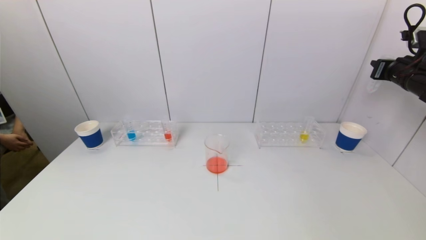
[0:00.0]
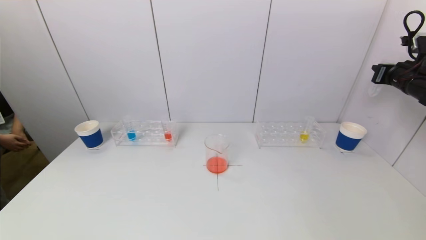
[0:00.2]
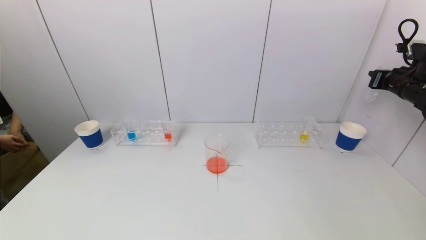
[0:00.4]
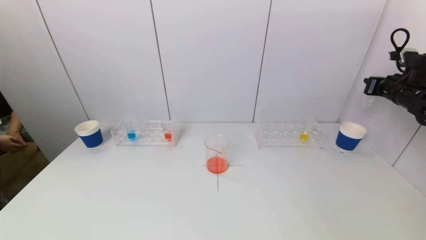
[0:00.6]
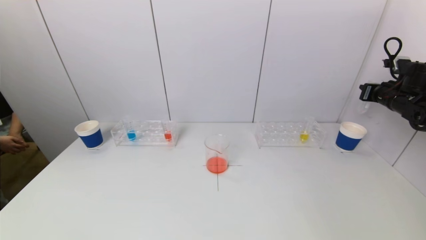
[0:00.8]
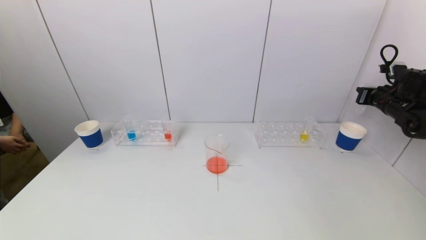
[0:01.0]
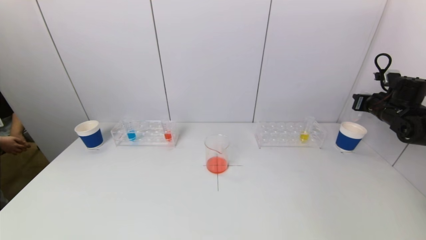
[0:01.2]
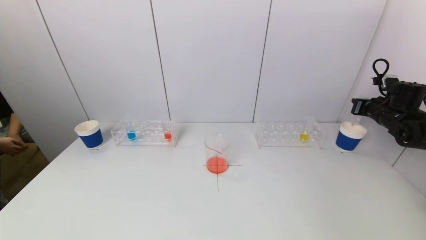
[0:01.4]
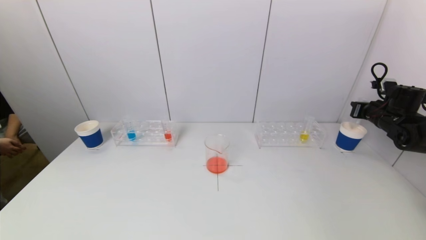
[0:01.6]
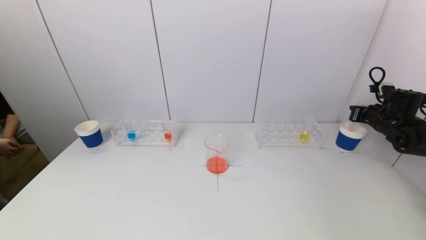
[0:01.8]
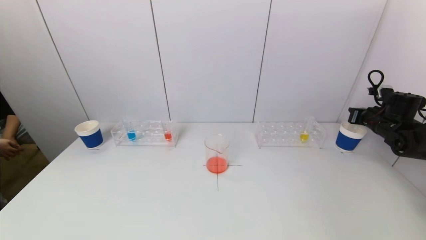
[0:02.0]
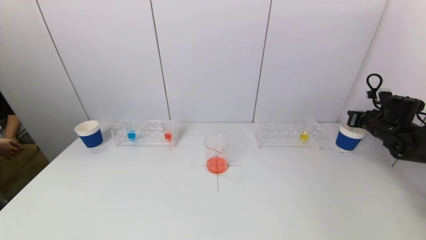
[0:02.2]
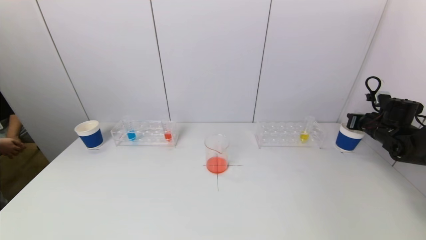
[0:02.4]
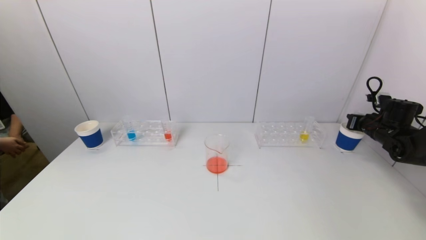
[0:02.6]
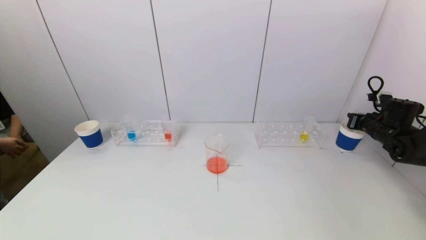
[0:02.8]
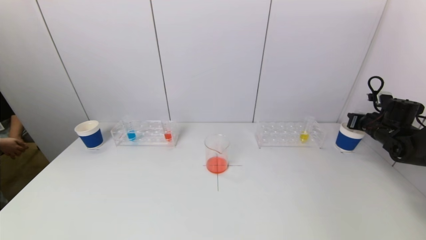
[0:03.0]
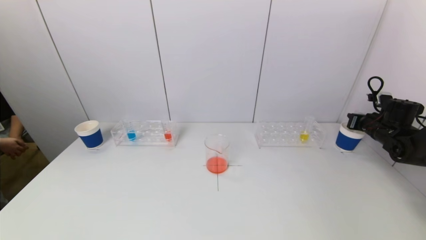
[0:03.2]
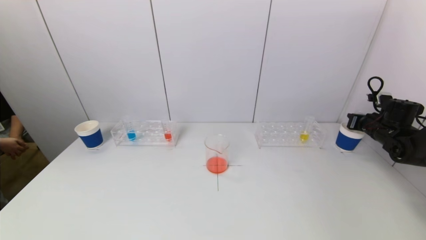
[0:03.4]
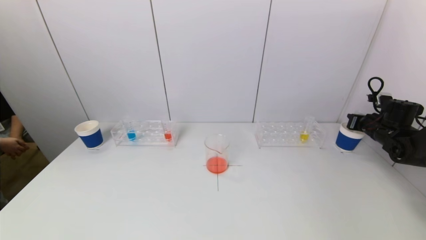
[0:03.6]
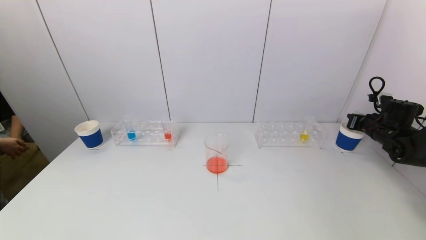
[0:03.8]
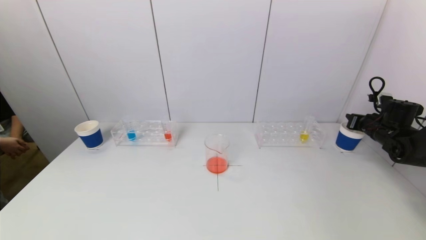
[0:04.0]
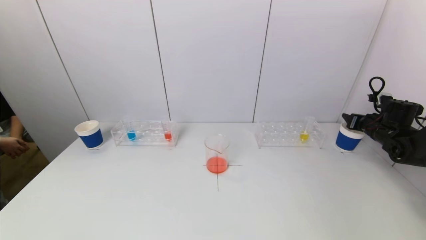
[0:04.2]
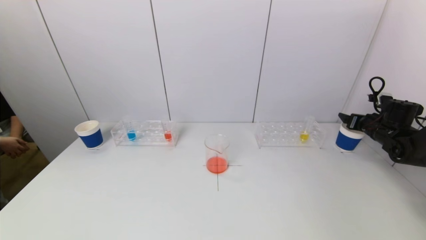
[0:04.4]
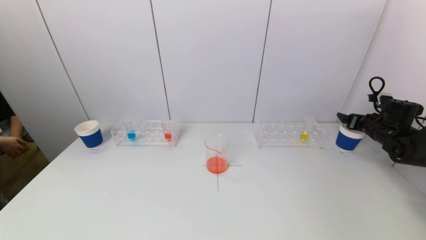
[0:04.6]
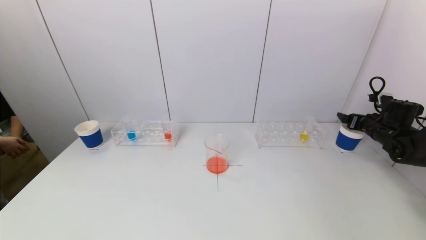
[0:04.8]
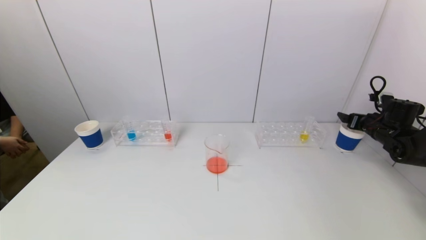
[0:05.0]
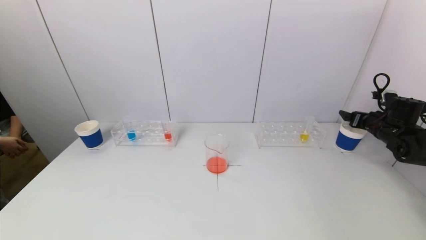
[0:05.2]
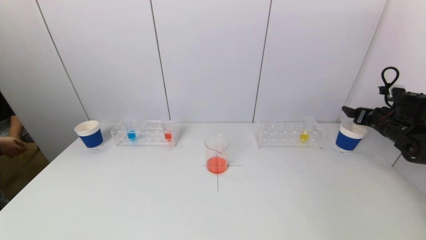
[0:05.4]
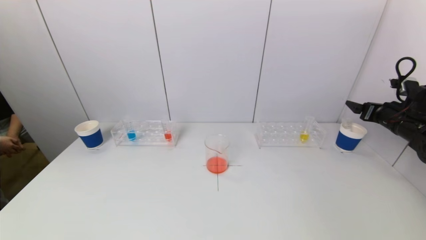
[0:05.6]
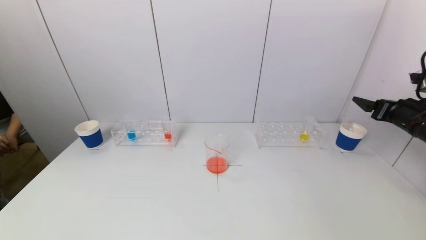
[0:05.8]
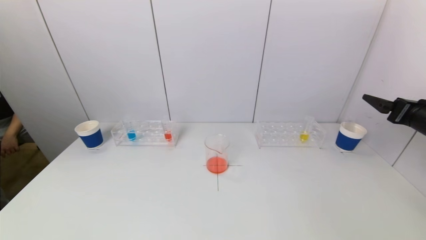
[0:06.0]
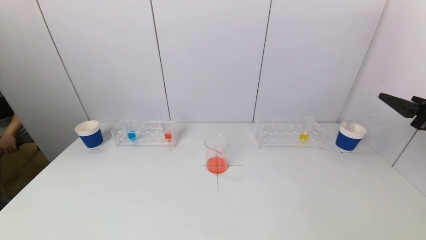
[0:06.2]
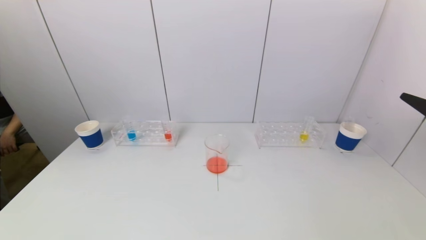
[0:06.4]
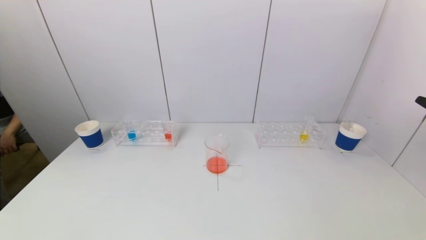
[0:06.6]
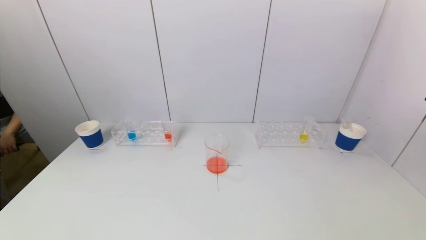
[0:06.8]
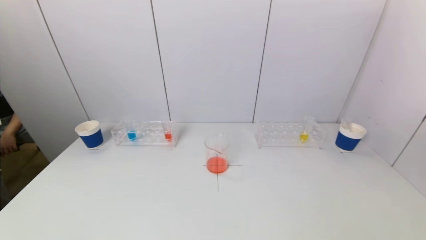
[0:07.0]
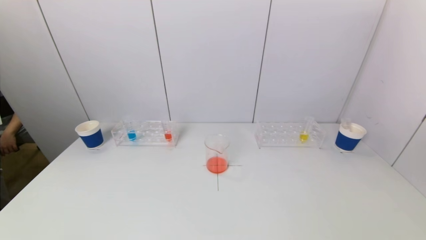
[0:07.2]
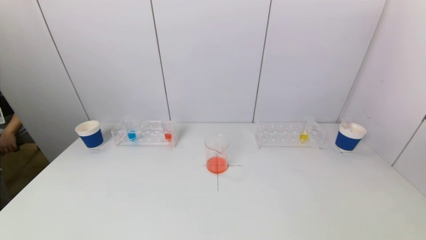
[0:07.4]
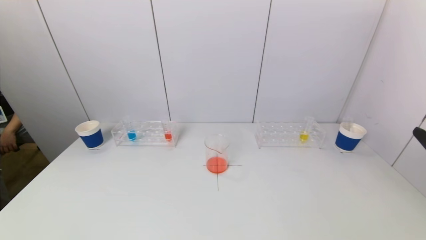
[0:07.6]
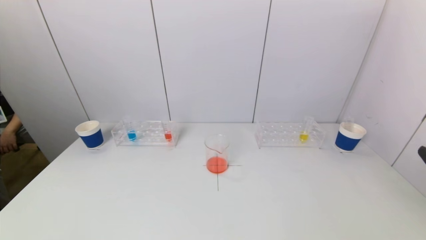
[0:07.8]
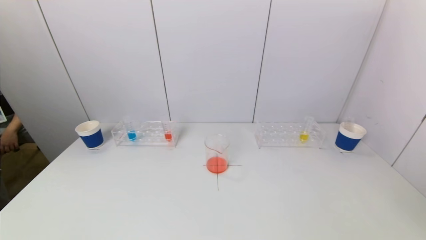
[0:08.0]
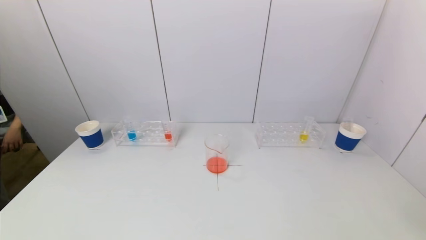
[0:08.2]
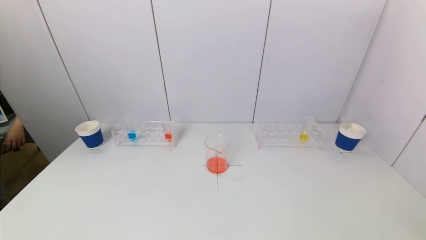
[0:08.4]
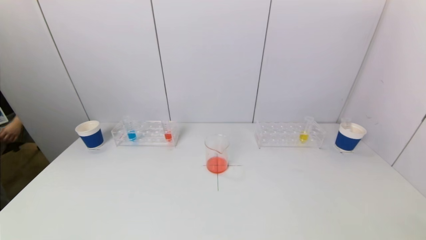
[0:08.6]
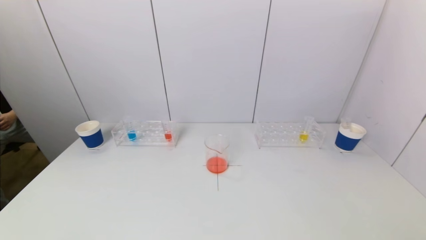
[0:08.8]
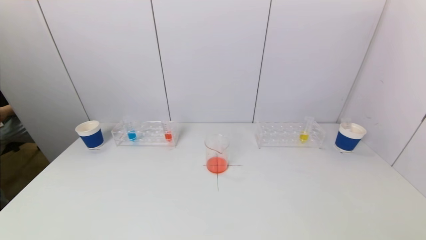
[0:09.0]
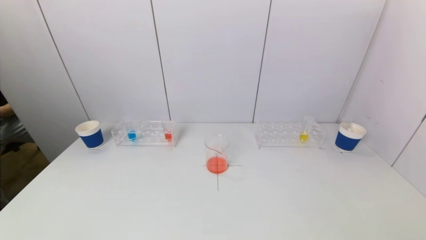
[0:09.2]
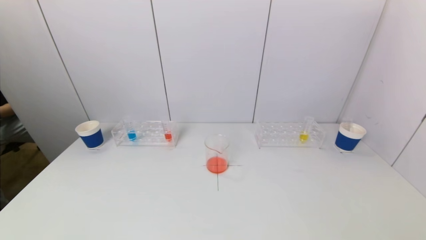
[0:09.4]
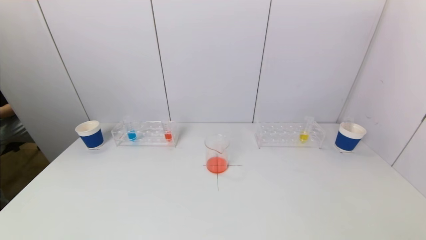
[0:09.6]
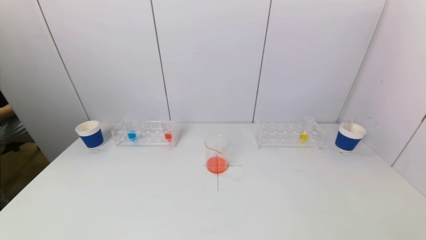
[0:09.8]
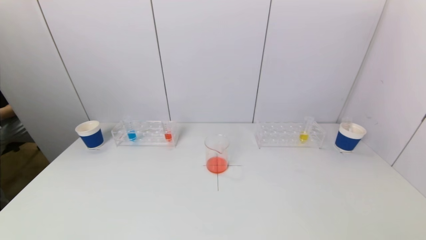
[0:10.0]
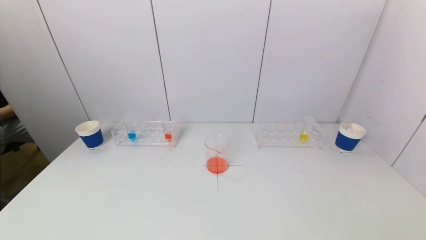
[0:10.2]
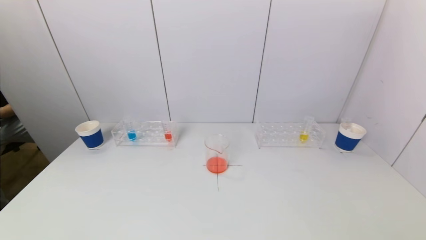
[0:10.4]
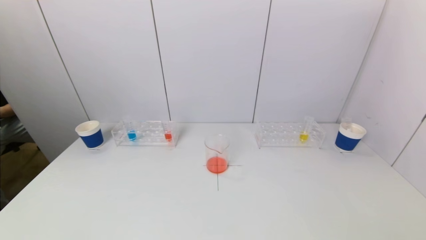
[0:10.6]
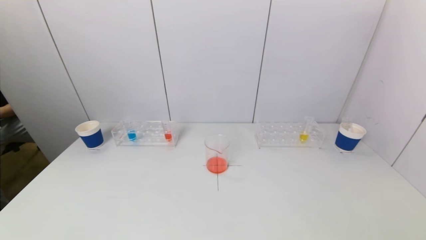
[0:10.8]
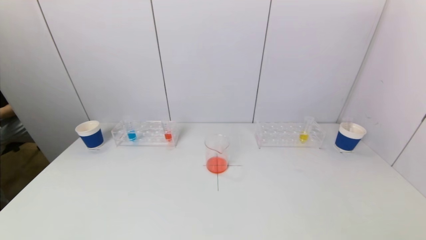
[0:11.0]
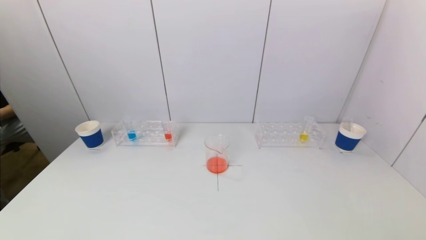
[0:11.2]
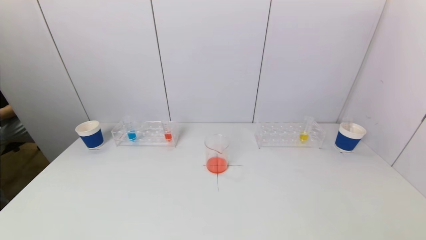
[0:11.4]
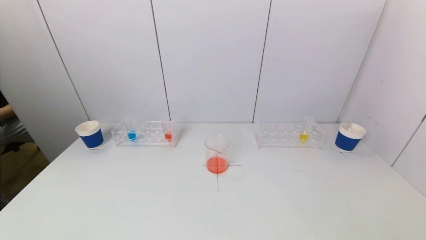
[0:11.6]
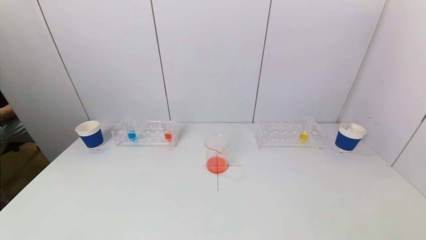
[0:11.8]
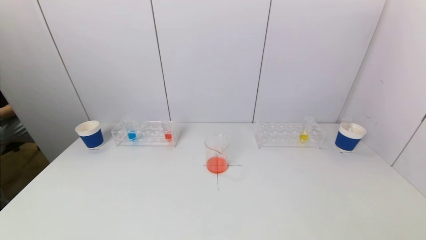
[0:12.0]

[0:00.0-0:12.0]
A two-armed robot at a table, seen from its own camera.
Task of the whole recording: pick up a test tube with pigment on left test tube rack and a test tube with pigment on right test tube rack by grippers and pour them into the beaker.
Step, 0:00.0 to 0:05.0: Place the test tube into the paper cup with the right gripper.
0:00.0 to 0:01.6: The right gripper moves downward, approximately 15 cm.
0:01.6 to 0:03.0: The grippers move only a little.
0:03.0 to 0:04.4: The right gripper opens.
0:04.4 to 0:06.0: The right gripper heads backward and upward, covering about 20 cm.
0:06.0 to 0:07.6: The right gripper heads backward, covering some 15 cm.
0:07.6 to 0:09.0: The right gripper travels backward and downward by approximately 15 cm.

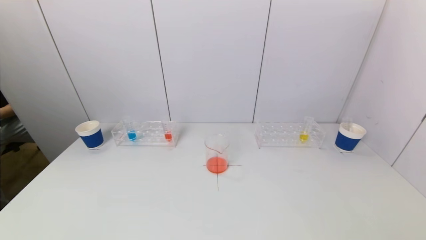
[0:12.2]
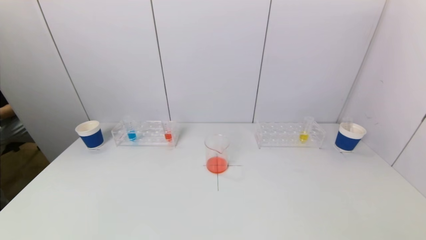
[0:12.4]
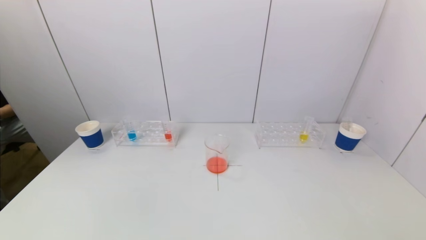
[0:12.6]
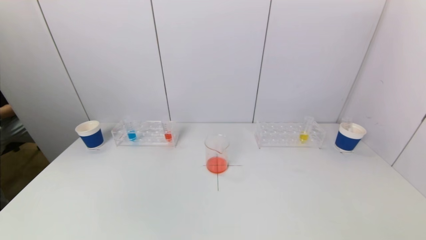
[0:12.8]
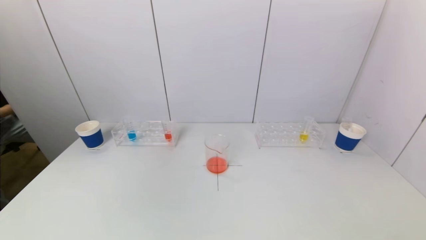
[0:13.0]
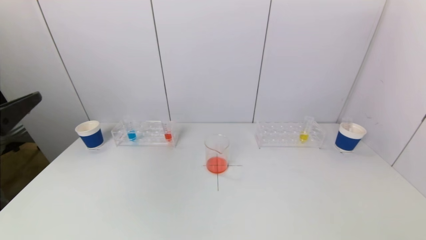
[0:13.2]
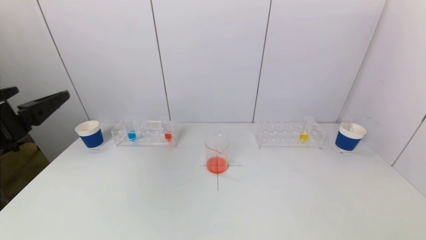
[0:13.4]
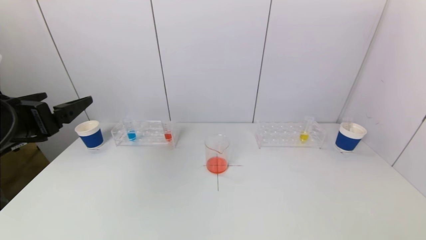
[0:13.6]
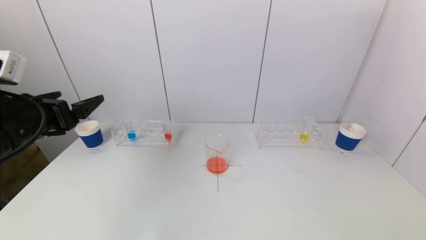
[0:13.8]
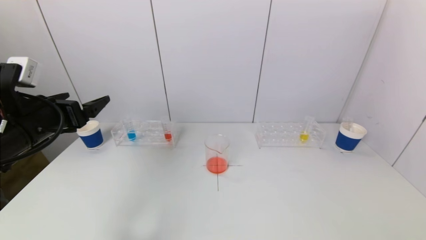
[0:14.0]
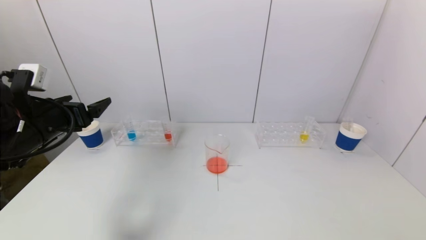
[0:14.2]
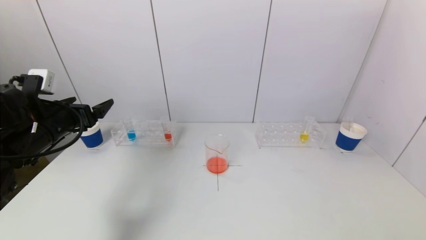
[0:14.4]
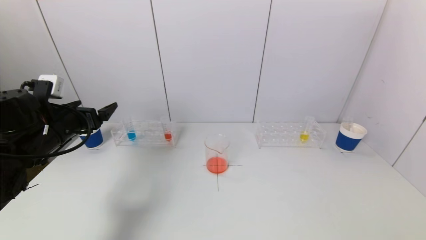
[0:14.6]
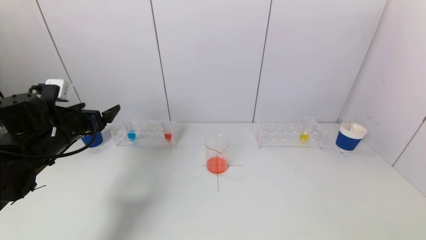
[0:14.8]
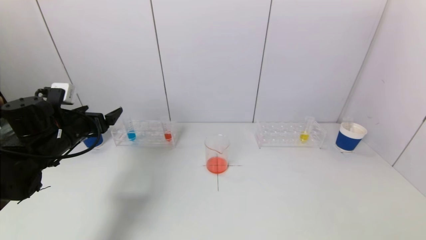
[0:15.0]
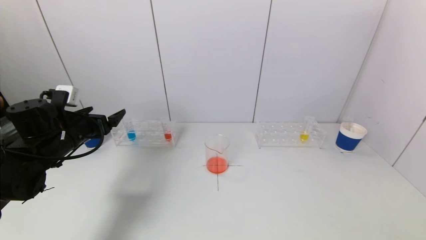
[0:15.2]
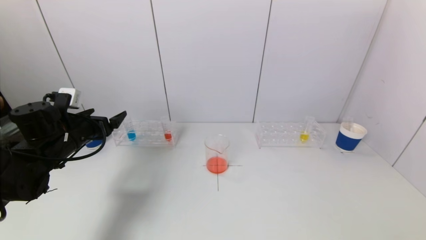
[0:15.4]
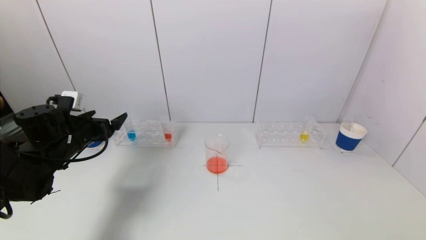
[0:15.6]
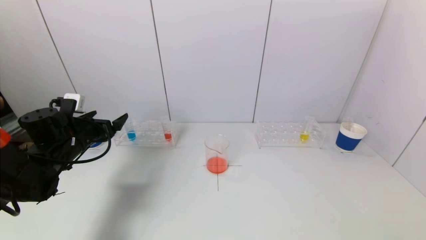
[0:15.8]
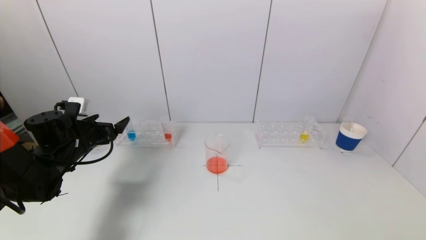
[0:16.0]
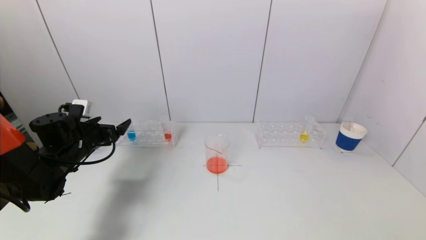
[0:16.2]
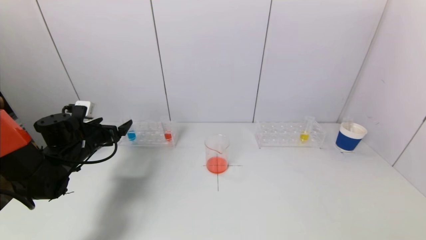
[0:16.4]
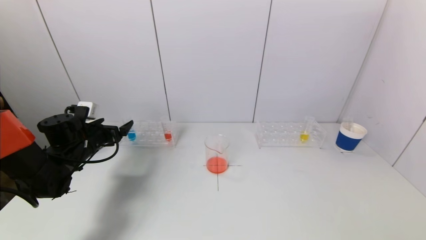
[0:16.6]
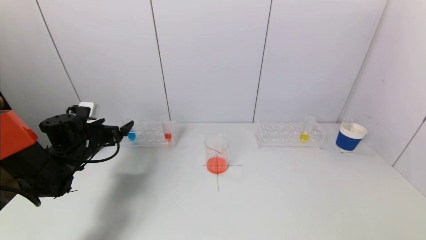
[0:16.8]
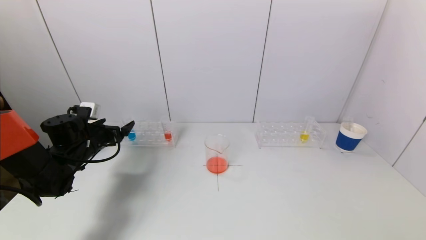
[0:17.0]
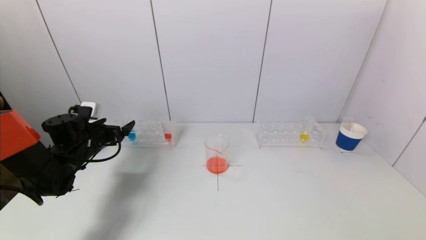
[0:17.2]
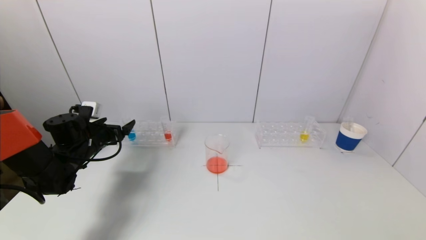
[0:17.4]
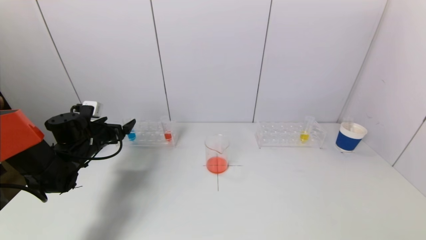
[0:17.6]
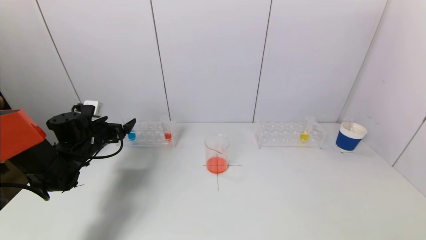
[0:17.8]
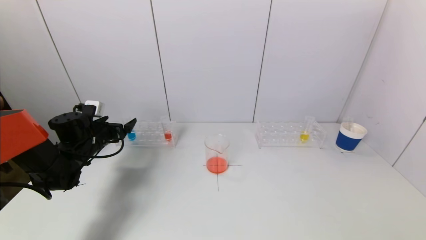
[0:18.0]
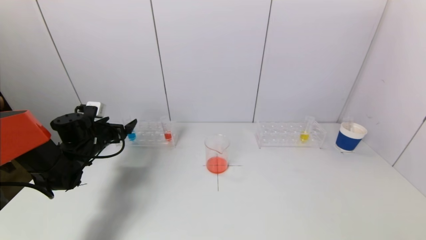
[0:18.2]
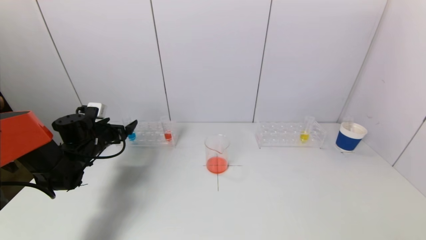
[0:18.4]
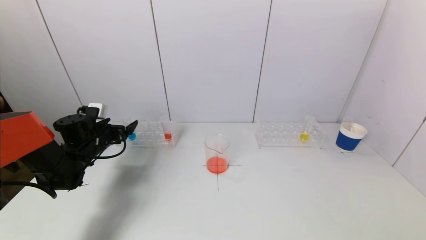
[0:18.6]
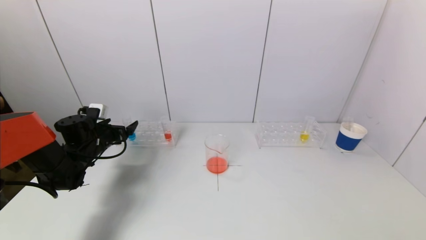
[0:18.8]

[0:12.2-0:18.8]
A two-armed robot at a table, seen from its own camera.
Task of the whole recording: pick up a test tube with pigment on left test tube rack and a test tube with pigment on right test tube rack by grippers and pour them into the beaker.
0:12.2 to 0:13.8: The left gripper goes some 25 cm forward and upward.
0:13.8 to 0:15.4: The left gripper is displaced forward and downward by about 15 cm.
0:15.4 to 0:17.2: The left gripper is displaced downward by about 5 cm.
0:17.2 to 0:18.8: There are only small adjustments of the grippers.
